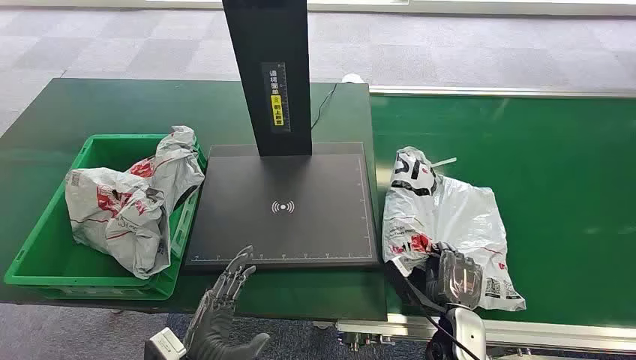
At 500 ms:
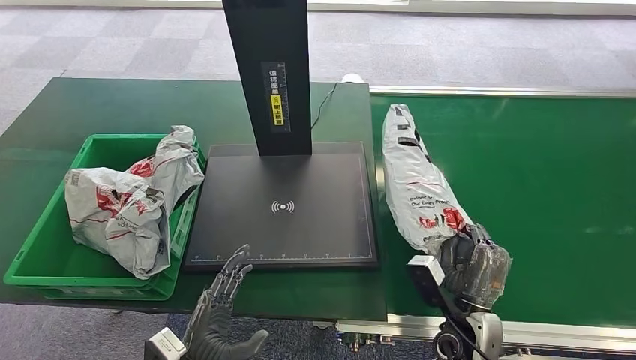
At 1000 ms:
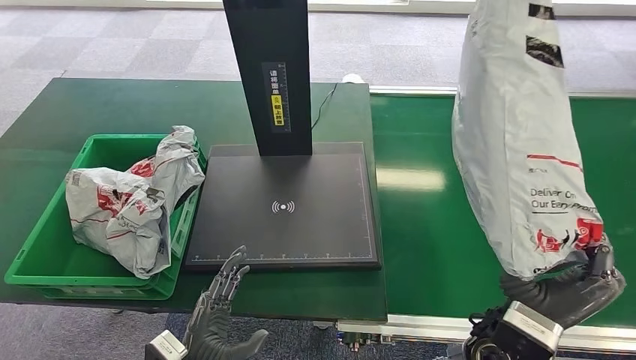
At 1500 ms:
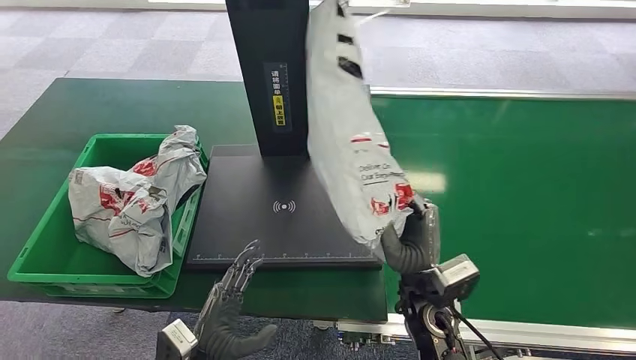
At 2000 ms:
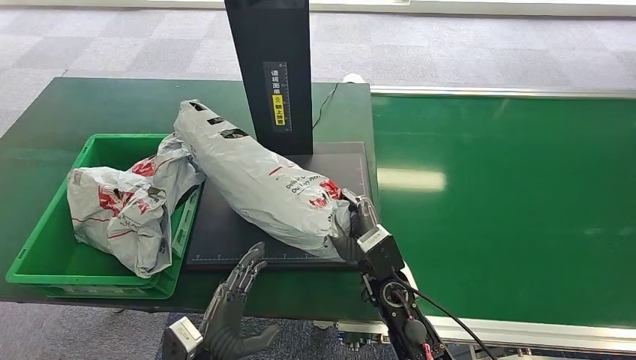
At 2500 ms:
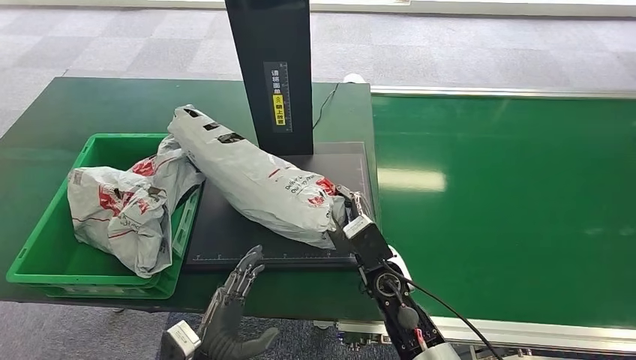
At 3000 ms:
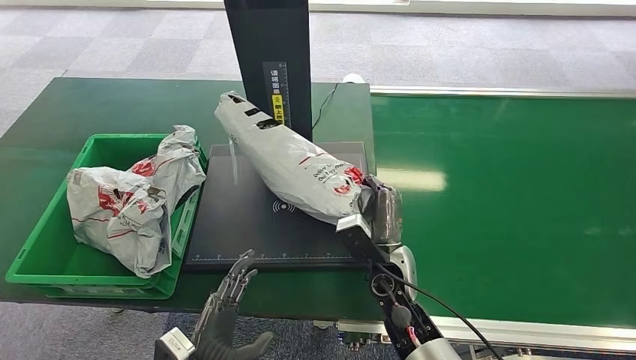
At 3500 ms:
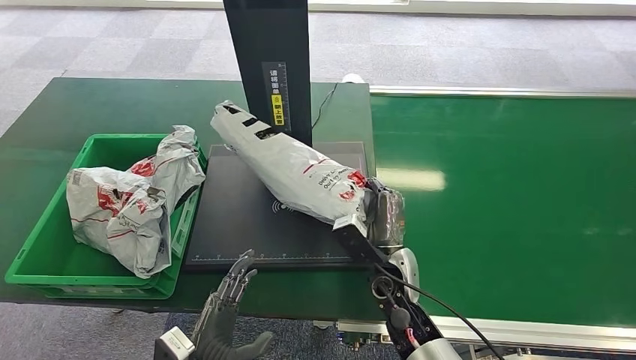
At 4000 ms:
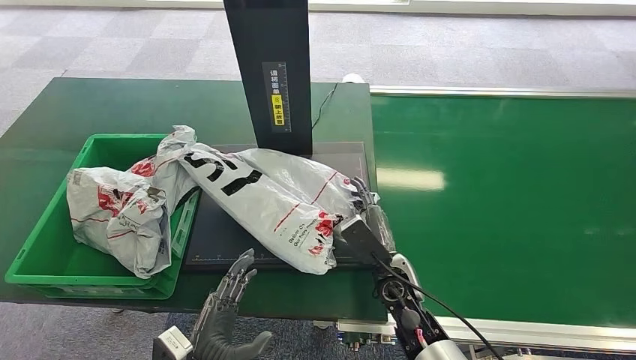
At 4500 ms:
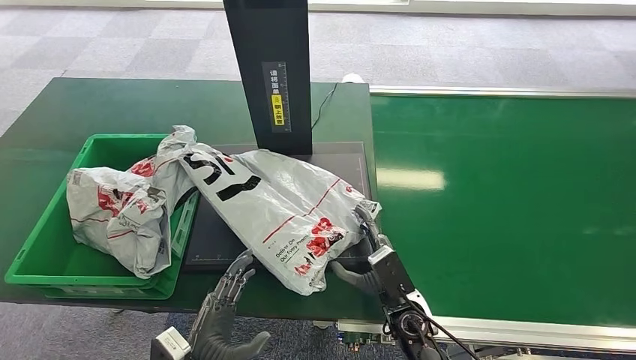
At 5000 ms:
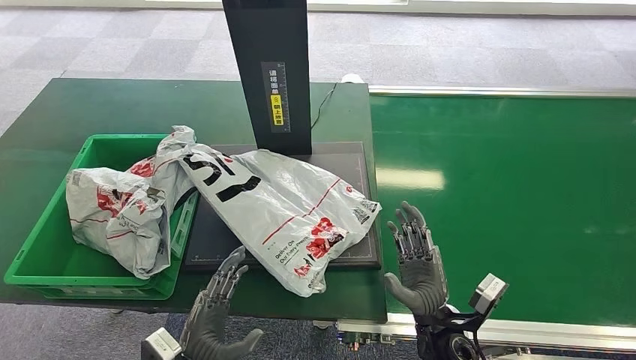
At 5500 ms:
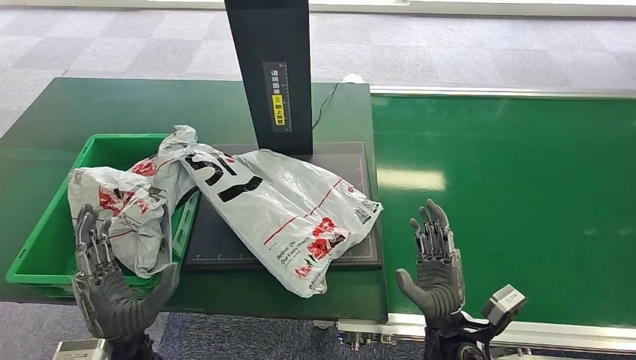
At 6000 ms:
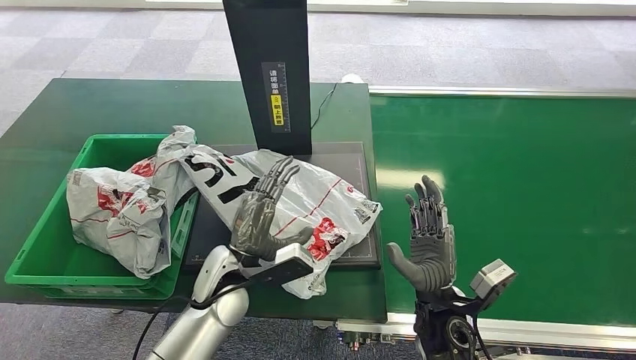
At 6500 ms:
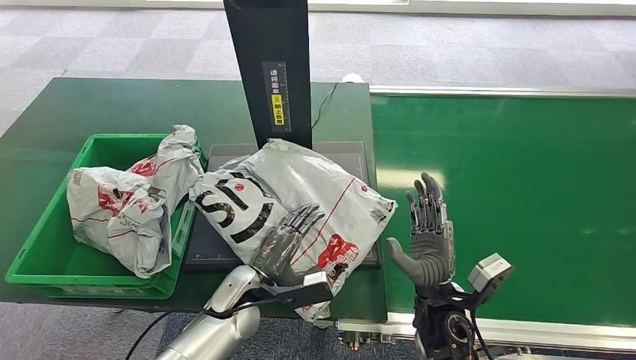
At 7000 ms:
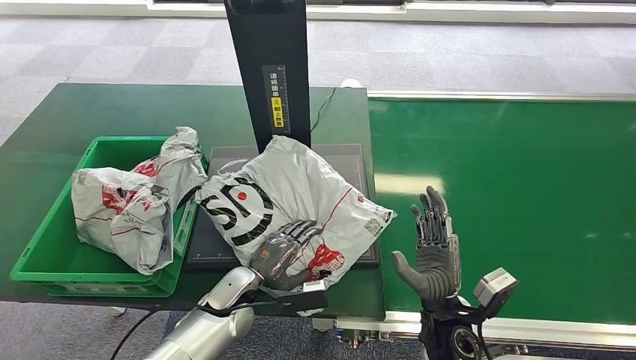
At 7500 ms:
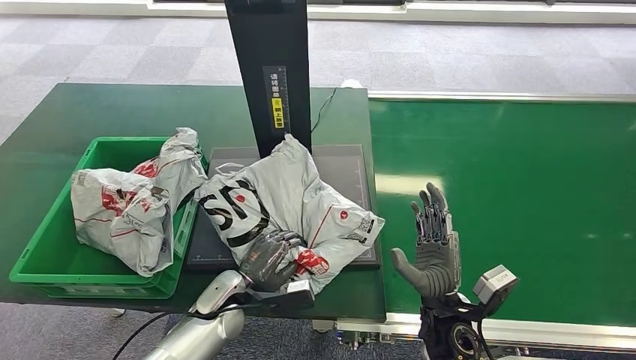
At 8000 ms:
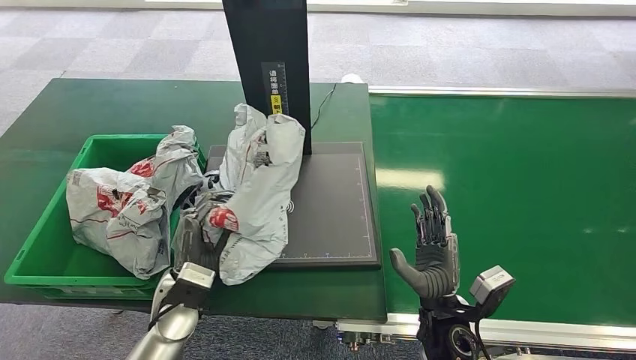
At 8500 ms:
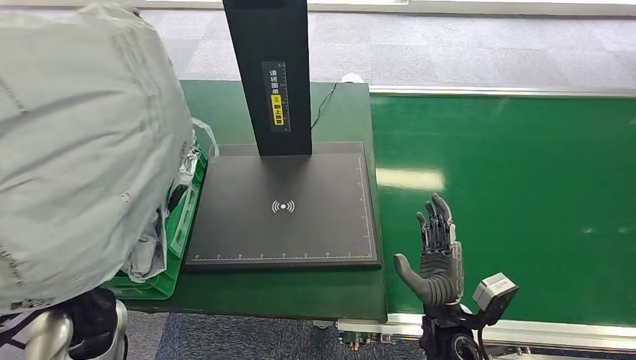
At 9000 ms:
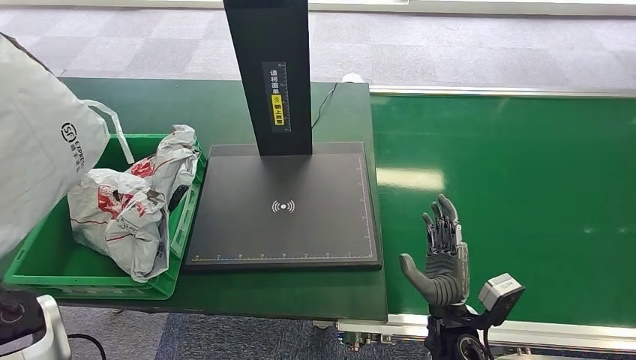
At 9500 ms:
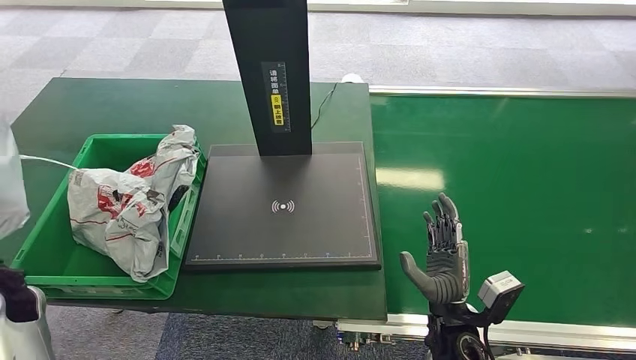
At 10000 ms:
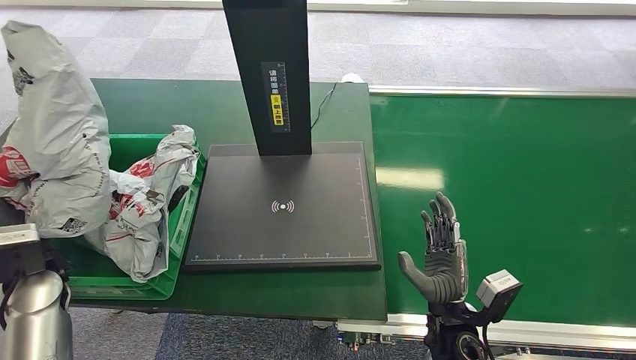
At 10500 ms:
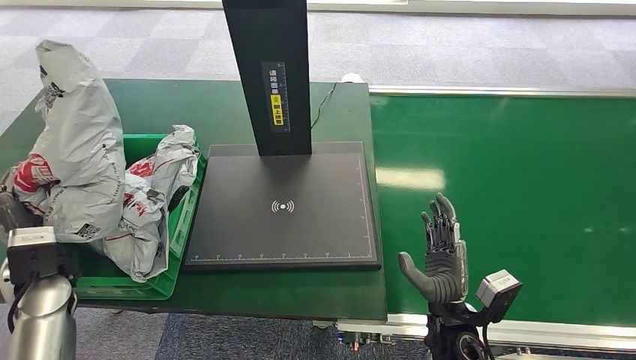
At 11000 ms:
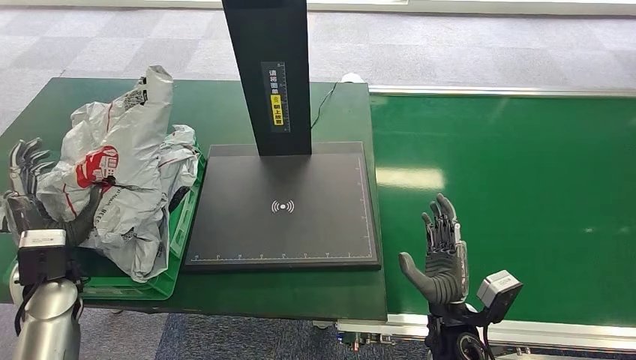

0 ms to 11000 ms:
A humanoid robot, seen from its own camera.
Step, 0 ms to 500 ms: Pick up the package from the conveyor belt.
3500 ms to 5500 ms: The right hand travels backward and to the right by some 15 cm; the left hand shifts approximately 10 cm upward and to the left.
9000 ms to 11000 ms: The left hand is displaced downward by roughly 5 cm.
